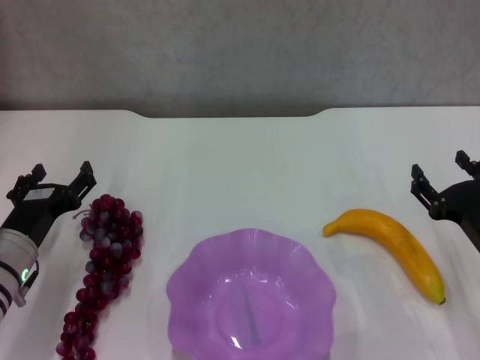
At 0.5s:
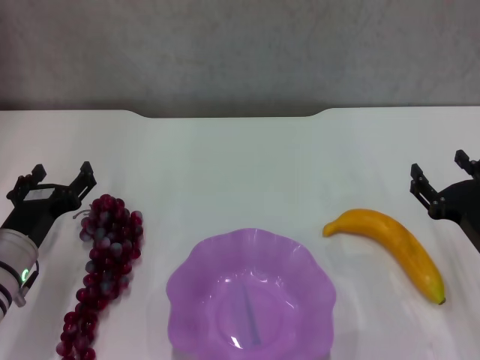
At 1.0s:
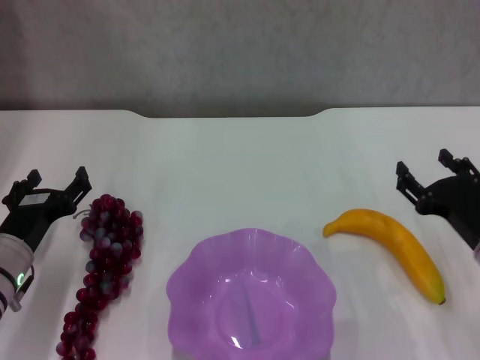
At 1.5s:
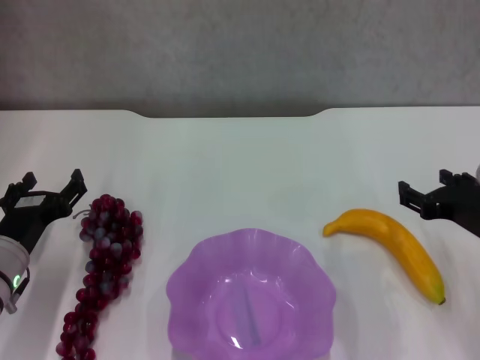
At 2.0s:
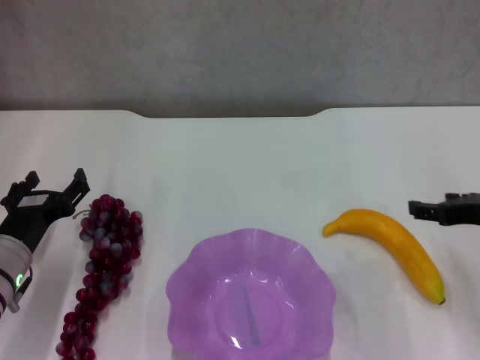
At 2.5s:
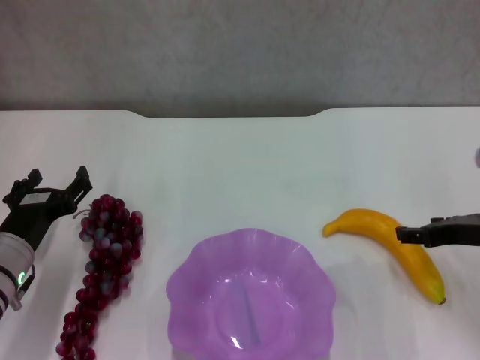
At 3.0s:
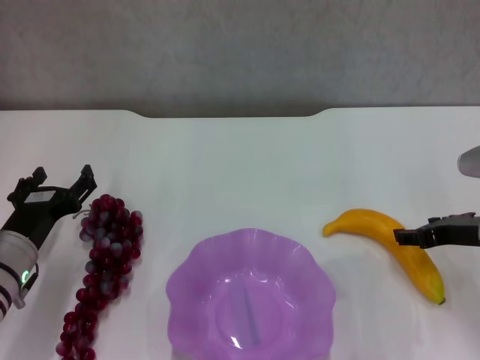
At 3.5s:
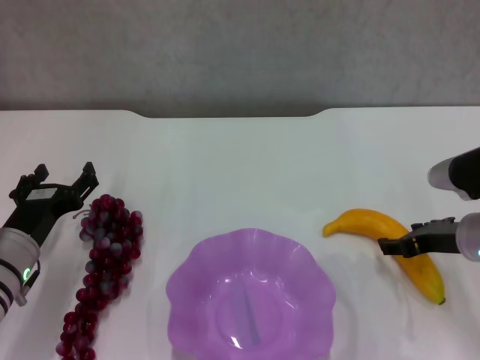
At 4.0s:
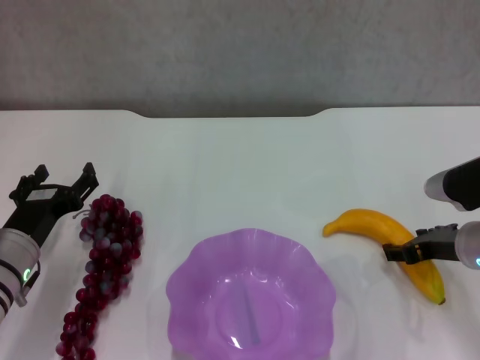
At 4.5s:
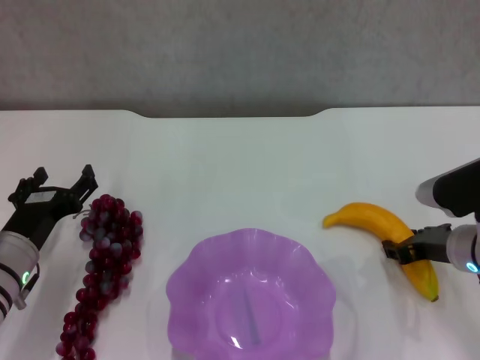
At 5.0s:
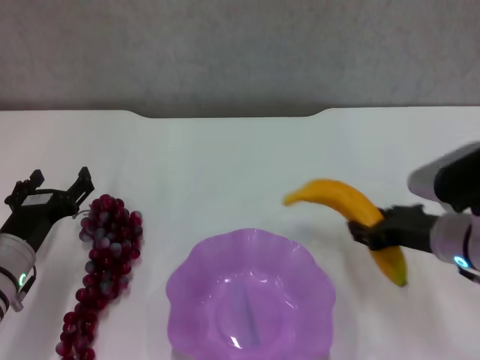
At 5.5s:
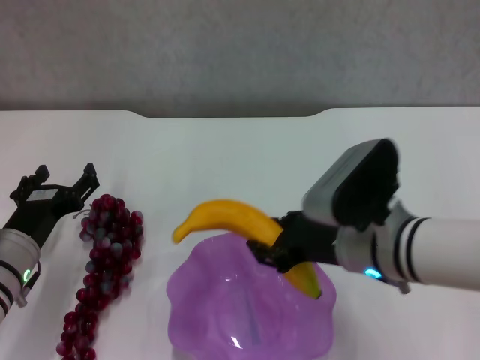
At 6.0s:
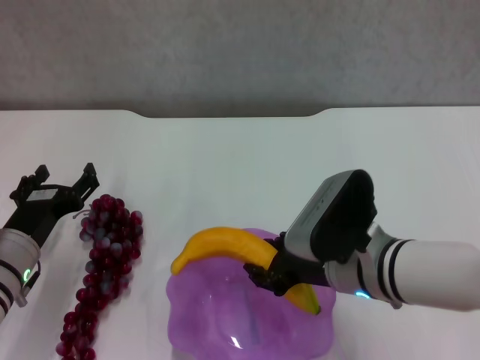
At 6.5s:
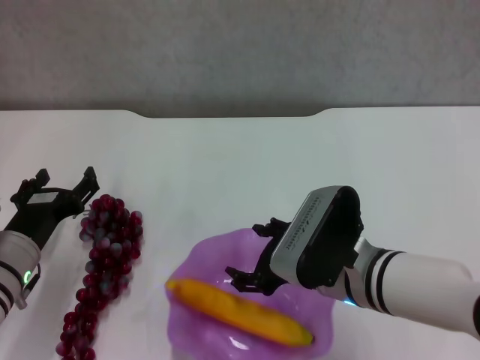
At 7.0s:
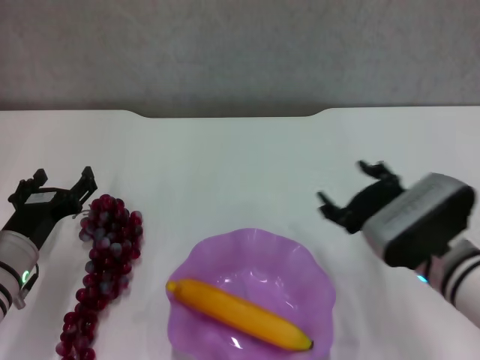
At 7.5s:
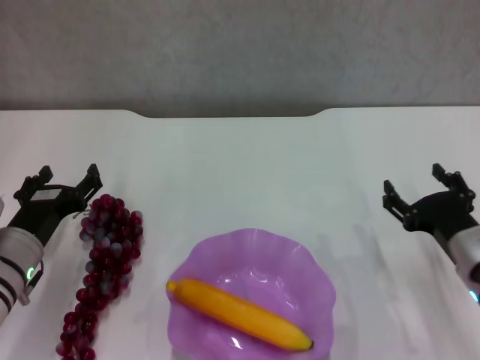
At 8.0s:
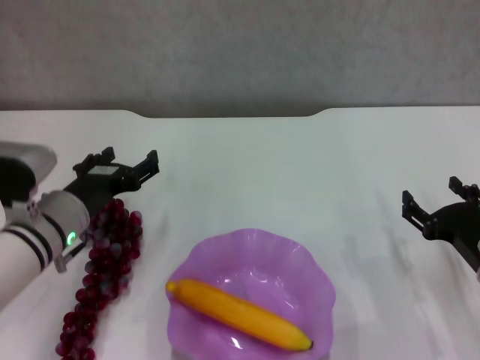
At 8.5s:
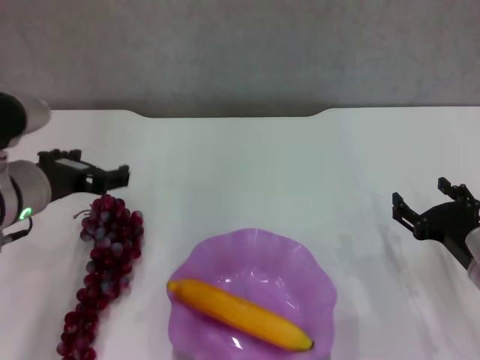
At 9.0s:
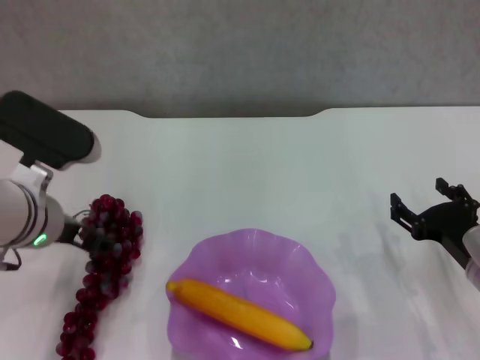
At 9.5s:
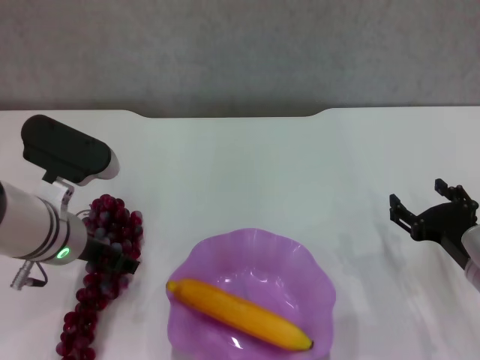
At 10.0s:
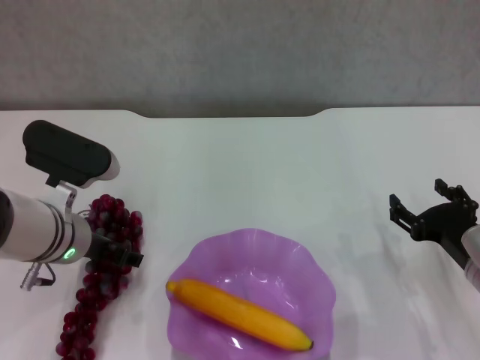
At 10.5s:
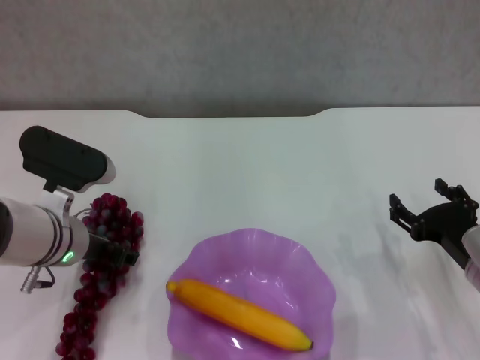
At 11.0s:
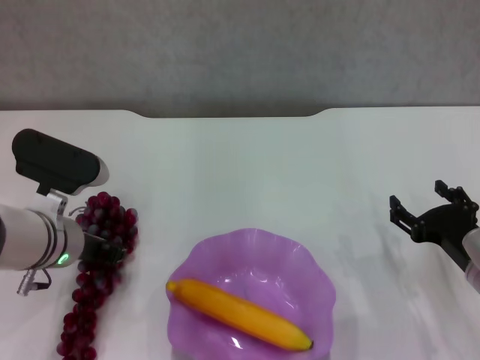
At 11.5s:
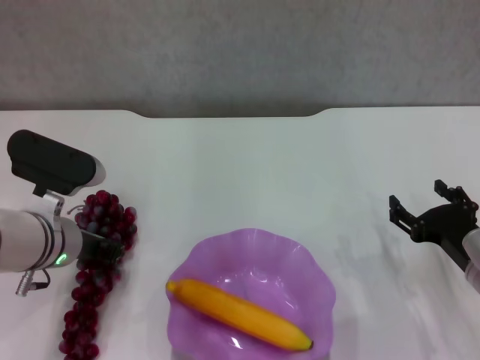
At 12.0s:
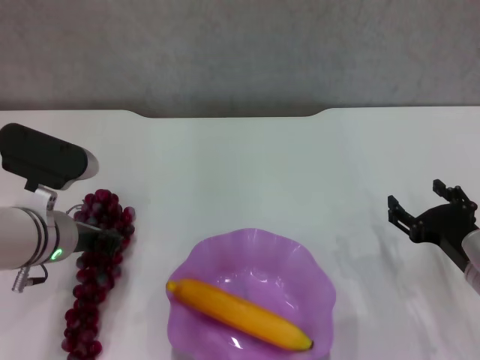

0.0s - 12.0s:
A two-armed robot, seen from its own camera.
Step, 0.0s - 4.0s: Grasp the banana with right gripper.
Step, 4.5s - 7.0s: Place the banana in the purple plate with right gripper.
Step, 7.5s - 10.5s: Grasp the grape with left gripper.
0.0s - 2.0s: The right gripper is displaced upward by roughly 10 cm.
2.0s - 4.0s: The right gripper travels downward by roughly 5 cm.
4.0s - 6.0s: The right gripper heads to the left, covering some 15 cm, and closes up.
6.0s - 8.0s: The left gripper moves approximately 5 cm, while the right gripper moves to the right and downward, about 15 cm, and opens up.
10.0s - 12.0s: The left gripper closes its fingers.

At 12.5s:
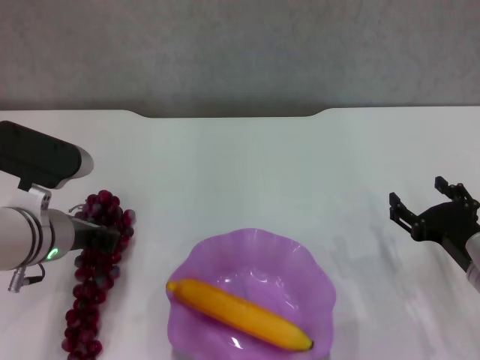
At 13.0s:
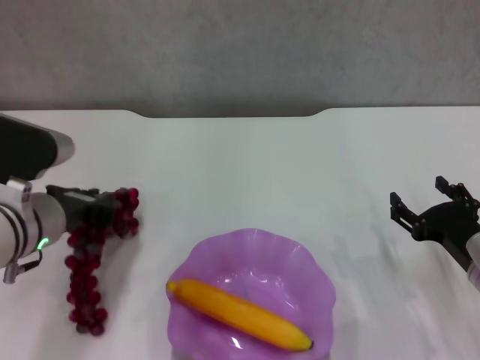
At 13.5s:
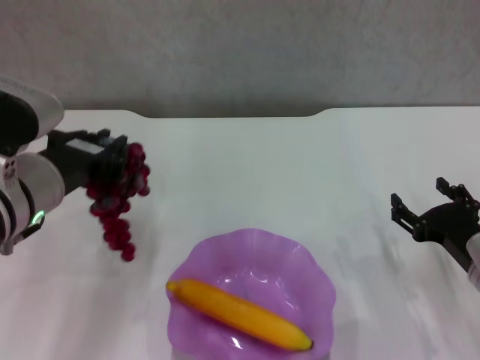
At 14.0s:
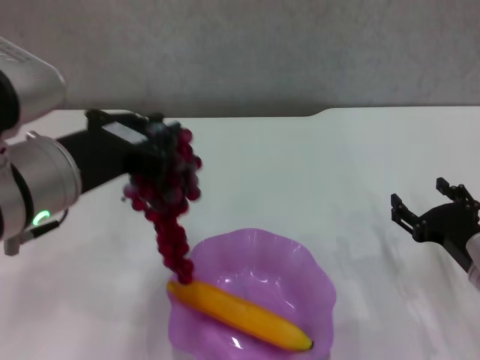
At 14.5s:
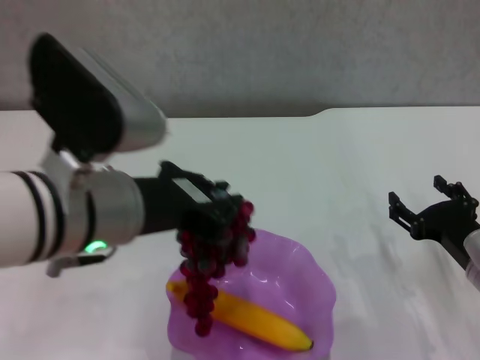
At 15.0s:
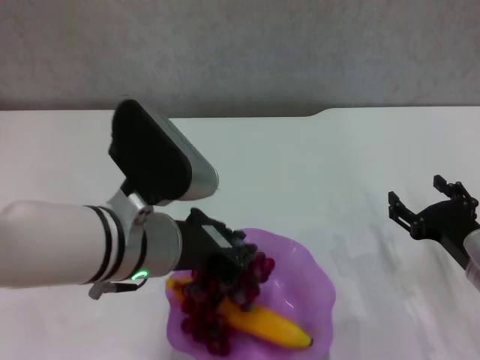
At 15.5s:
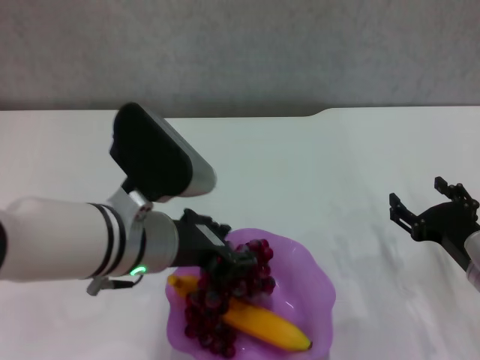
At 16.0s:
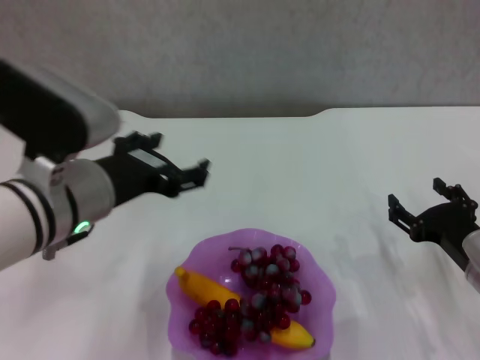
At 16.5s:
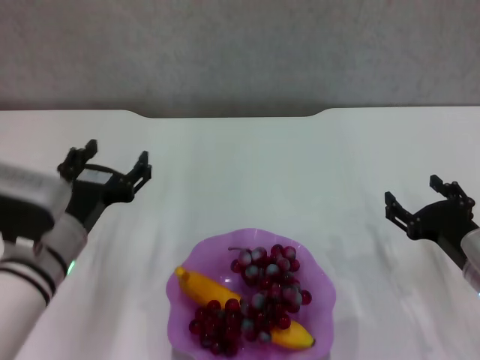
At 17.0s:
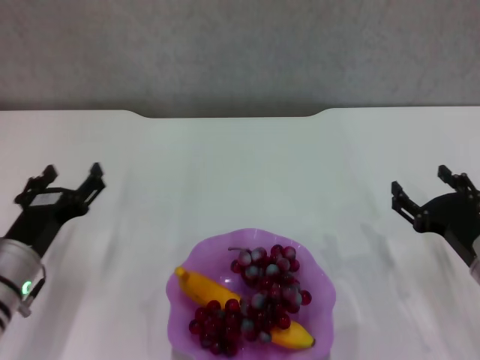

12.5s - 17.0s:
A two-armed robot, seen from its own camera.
Step, 12.5s - 15.5s: Place the grape in the purple plate with left gripper.
12.5s - 14.5s: The left gripper travels upward, to the right and backward by approximately 15 cm.
14.5s - 17.0s: The left gripper shifts roughly 20 cm downward and to the left, and opens.

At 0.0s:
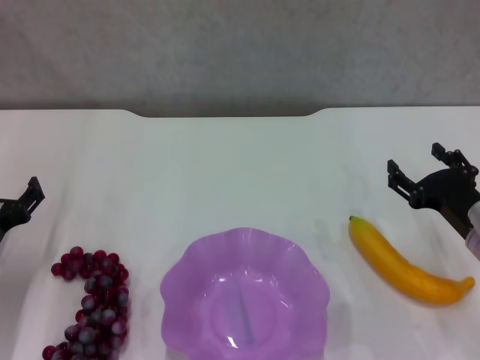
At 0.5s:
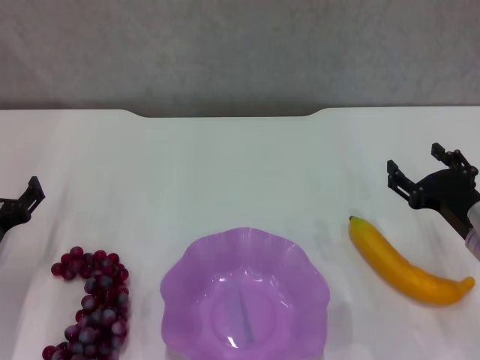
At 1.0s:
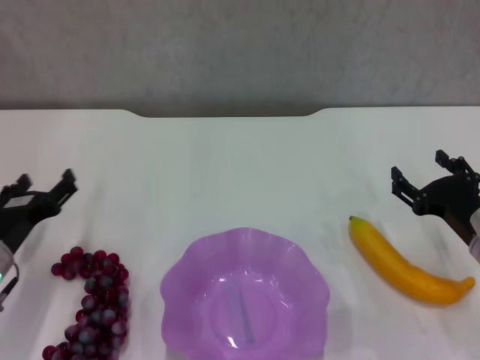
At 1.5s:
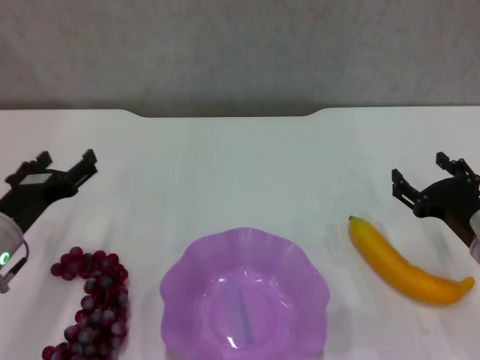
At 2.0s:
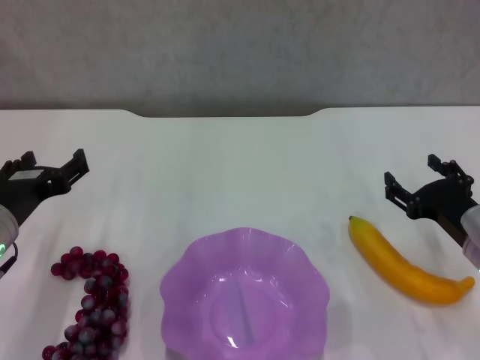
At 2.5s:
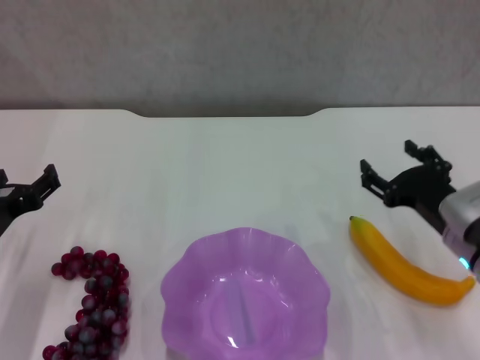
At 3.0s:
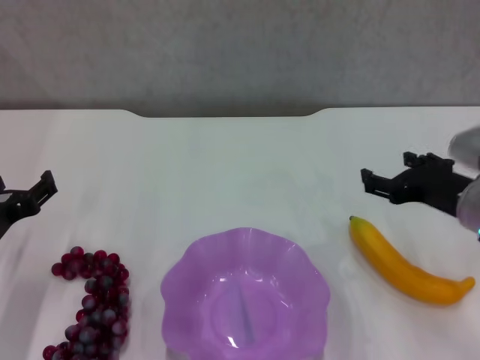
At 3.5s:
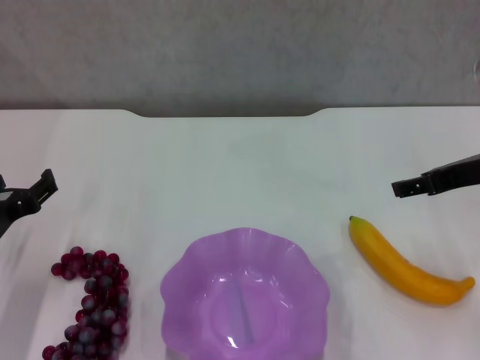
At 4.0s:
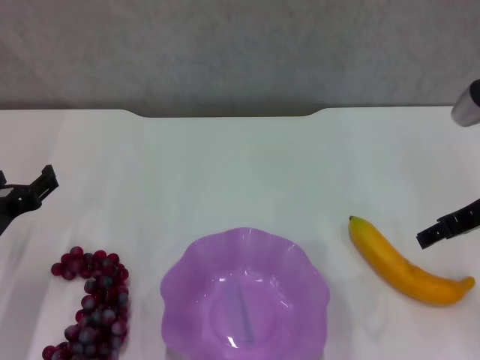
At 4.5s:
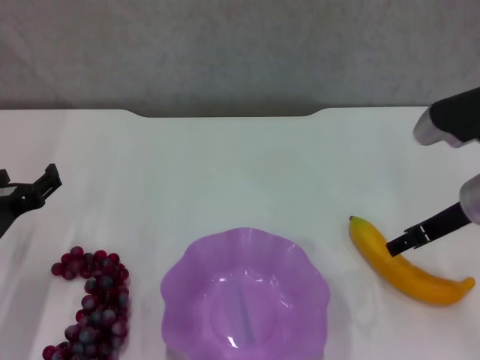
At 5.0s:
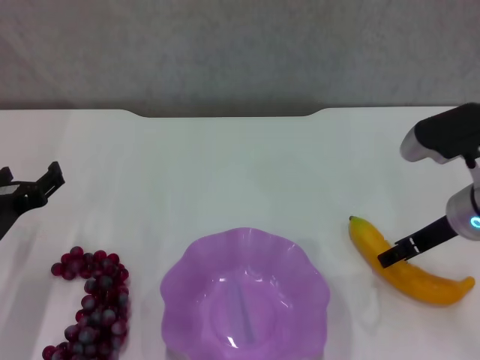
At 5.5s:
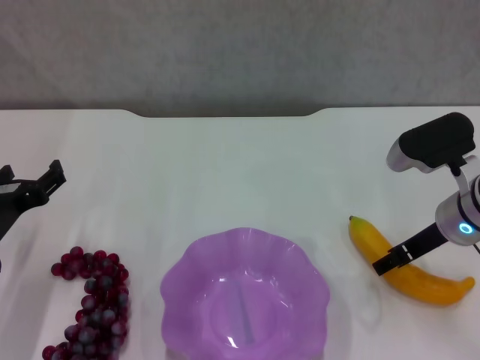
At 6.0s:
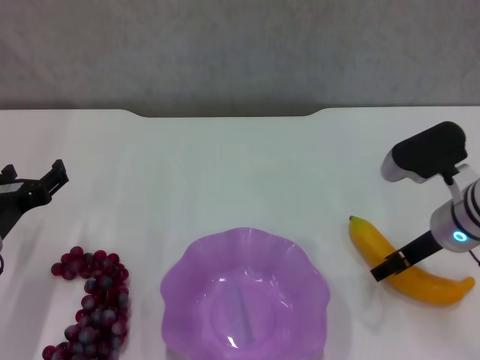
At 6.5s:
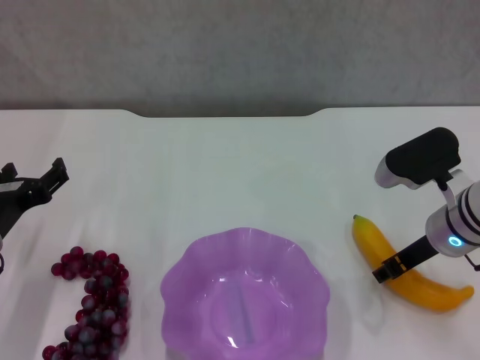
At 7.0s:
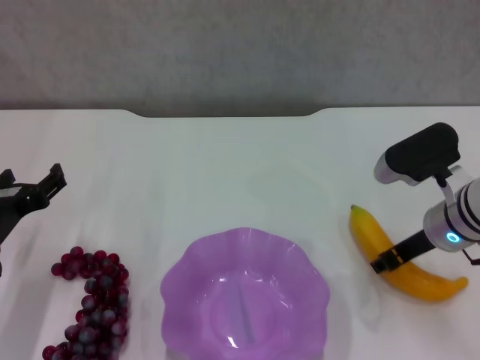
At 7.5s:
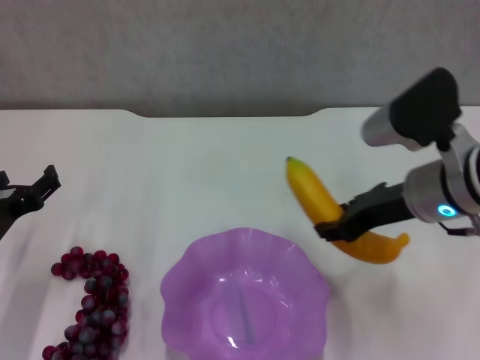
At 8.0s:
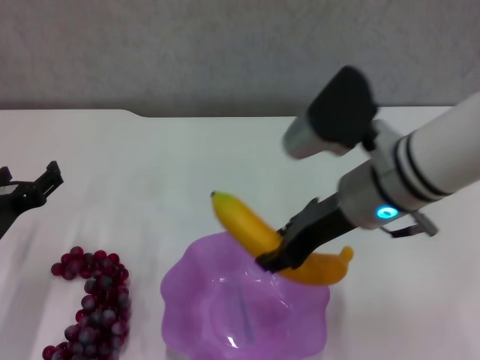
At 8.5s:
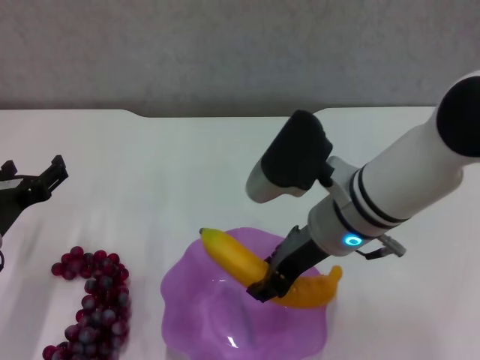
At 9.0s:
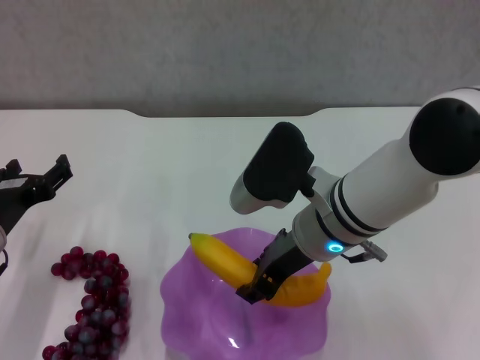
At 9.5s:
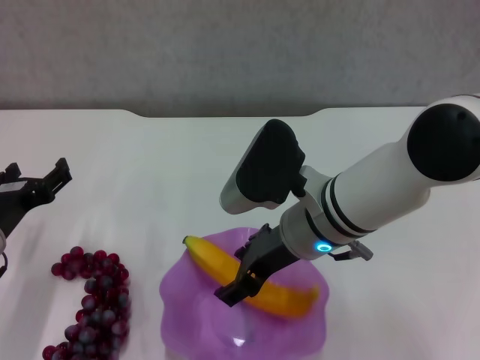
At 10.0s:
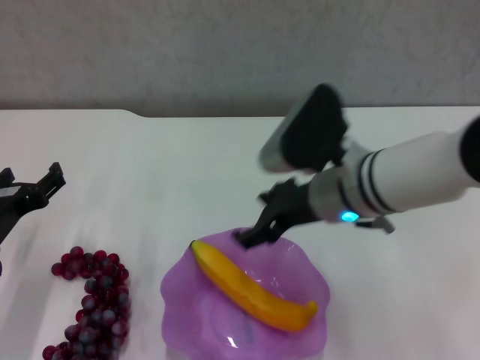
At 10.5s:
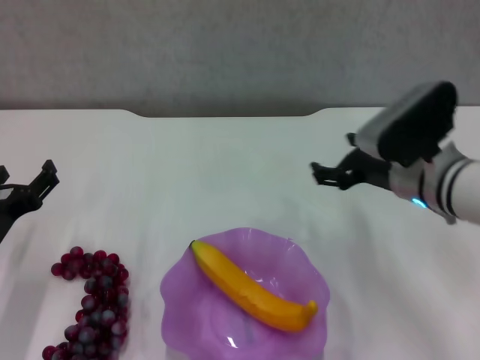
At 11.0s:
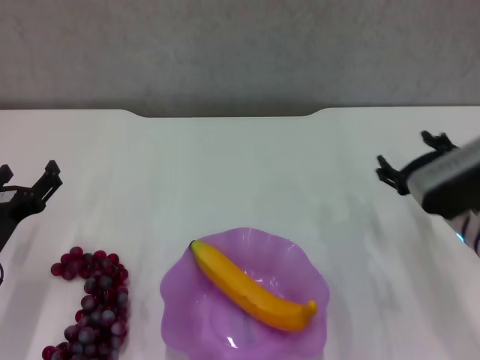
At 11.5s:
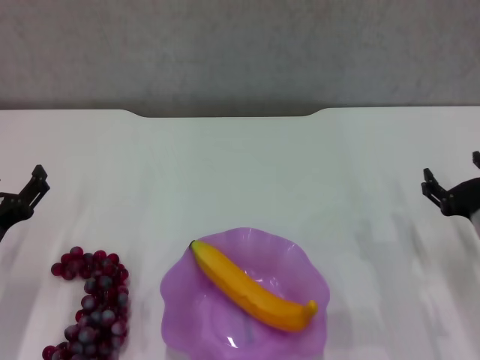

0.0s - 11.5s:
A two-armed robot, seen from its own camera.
Step, 0.0s - 6.5s: Grasp the banana with right gripper.
Step, 7.0s - 9.5s: Place the banana in the purple plate with right gripper.
0.0s - 2.0s: The left gripper shifts some 10 cm upward and to the right.
2.0s - 4.0s: The right gripper heads upward, covering about 15 cm.
4.0s - 6.0s: The right gripper shifts some 10 cm downward.
6.0s - 7.5s: The right gripper shifts approximately 5 cm upward, and closes up.
7.5s - 9.5s: The right gripper heads to the left, covering some 10 cm, and opens.
9.5s - 11.5s: The right gripper heads to the right and downward, covering some 25 cm, and opens its fingers; the left gripper ends up approximately 5 cm from where it was.
